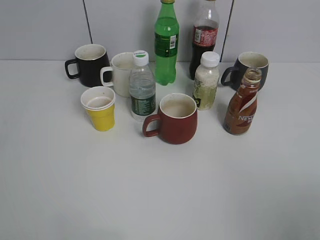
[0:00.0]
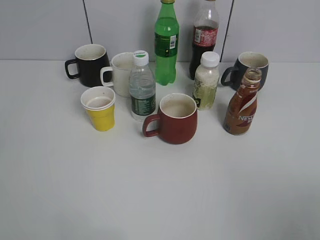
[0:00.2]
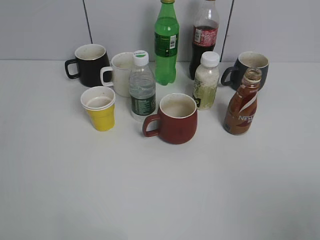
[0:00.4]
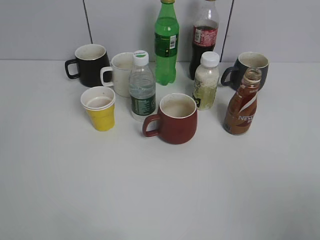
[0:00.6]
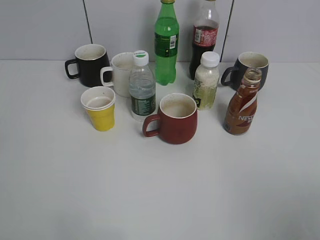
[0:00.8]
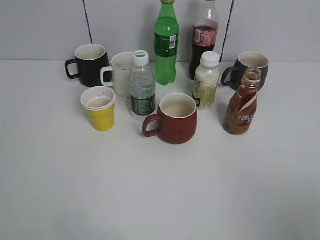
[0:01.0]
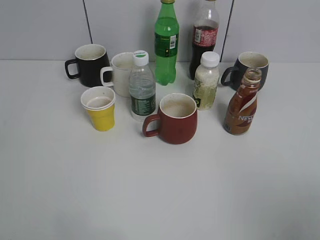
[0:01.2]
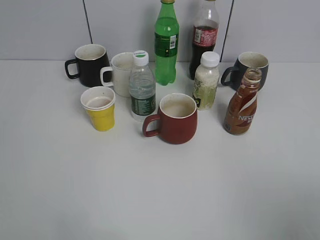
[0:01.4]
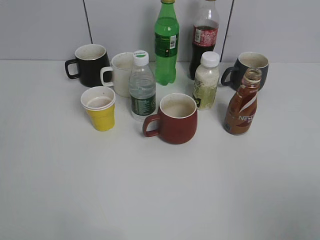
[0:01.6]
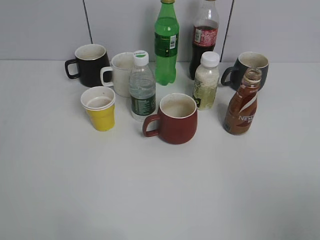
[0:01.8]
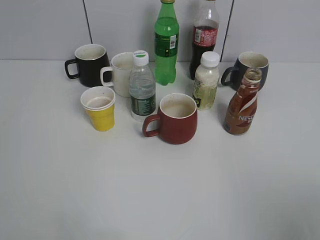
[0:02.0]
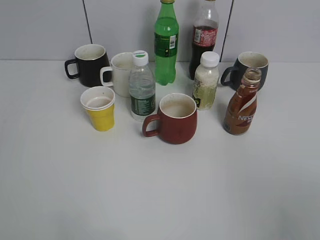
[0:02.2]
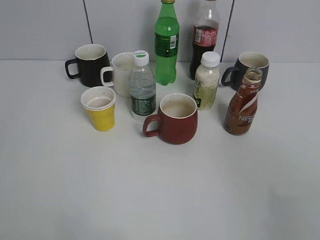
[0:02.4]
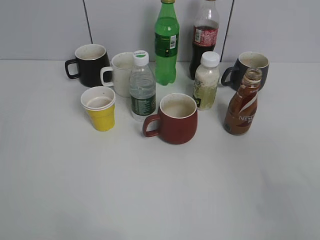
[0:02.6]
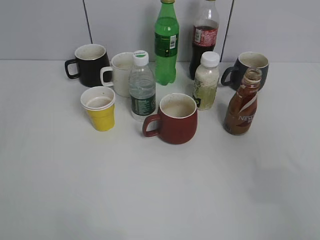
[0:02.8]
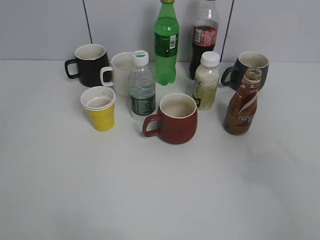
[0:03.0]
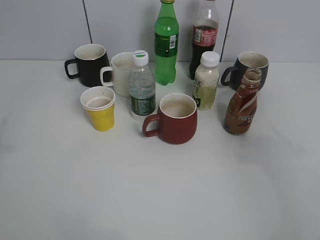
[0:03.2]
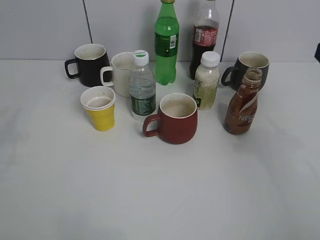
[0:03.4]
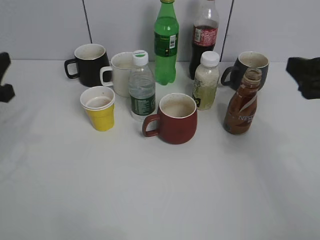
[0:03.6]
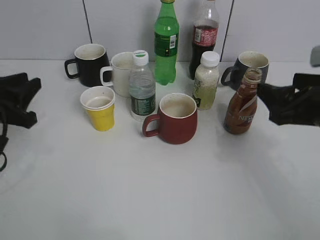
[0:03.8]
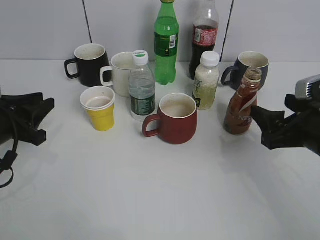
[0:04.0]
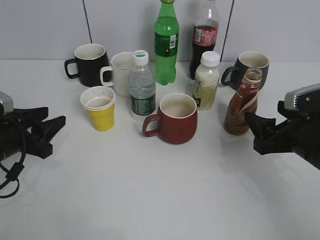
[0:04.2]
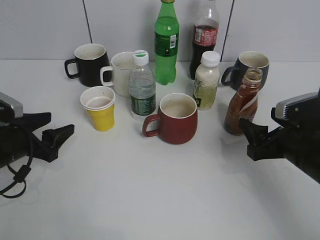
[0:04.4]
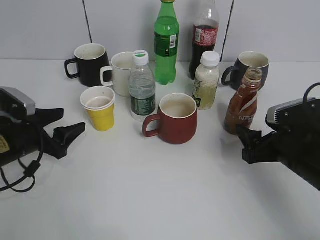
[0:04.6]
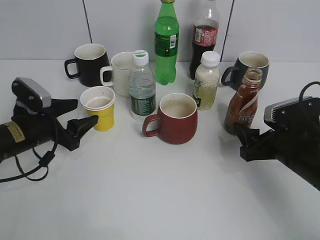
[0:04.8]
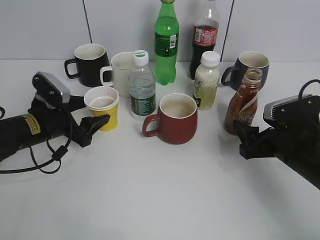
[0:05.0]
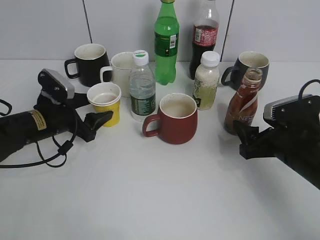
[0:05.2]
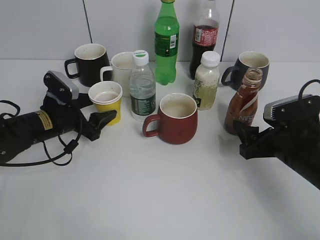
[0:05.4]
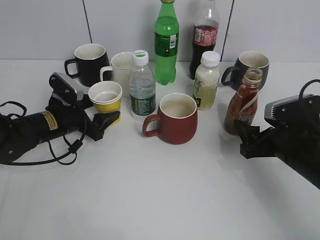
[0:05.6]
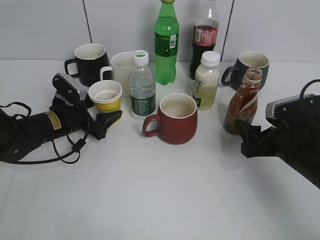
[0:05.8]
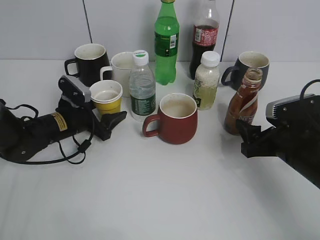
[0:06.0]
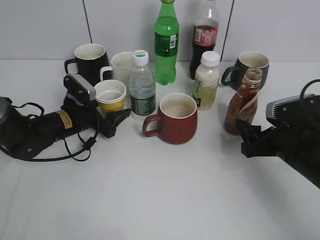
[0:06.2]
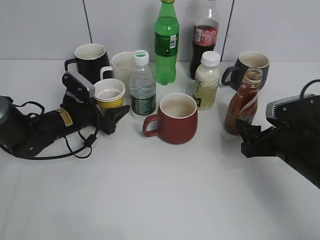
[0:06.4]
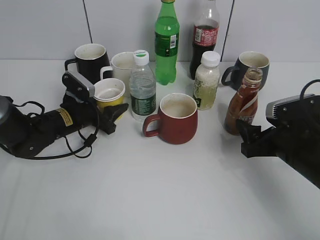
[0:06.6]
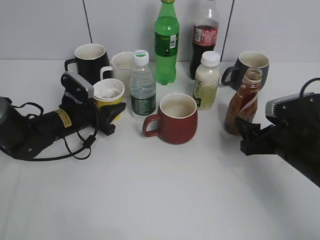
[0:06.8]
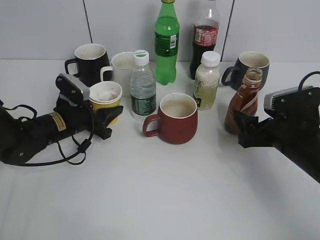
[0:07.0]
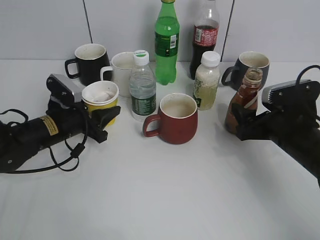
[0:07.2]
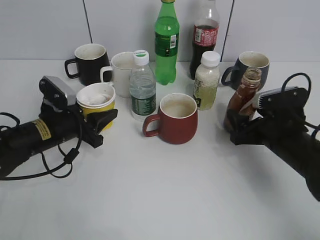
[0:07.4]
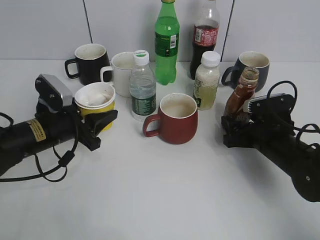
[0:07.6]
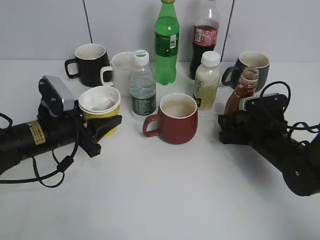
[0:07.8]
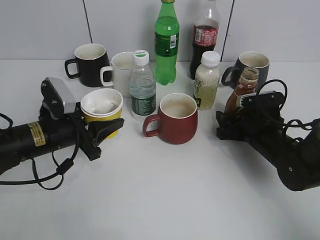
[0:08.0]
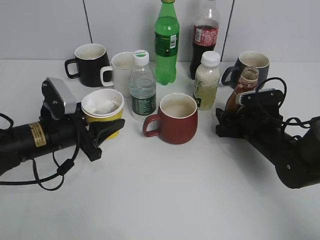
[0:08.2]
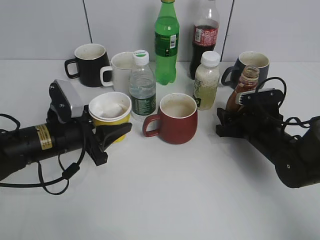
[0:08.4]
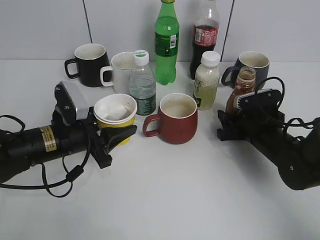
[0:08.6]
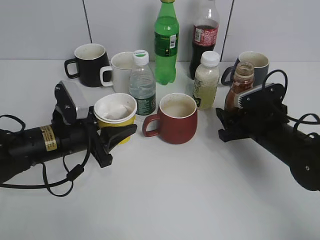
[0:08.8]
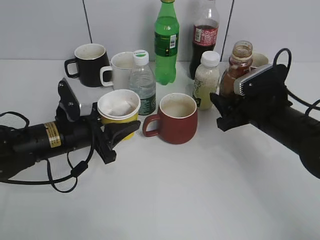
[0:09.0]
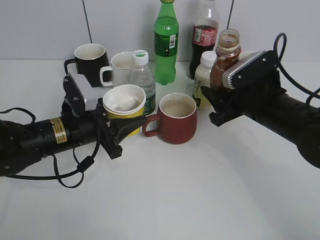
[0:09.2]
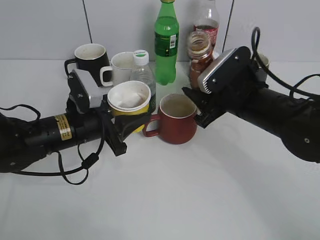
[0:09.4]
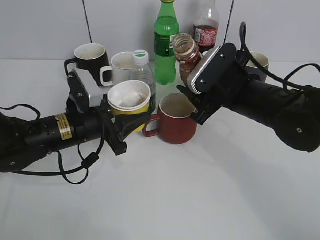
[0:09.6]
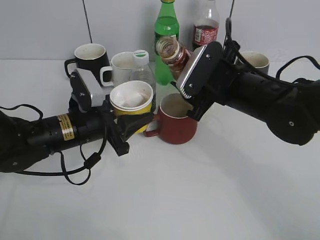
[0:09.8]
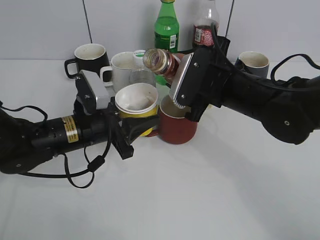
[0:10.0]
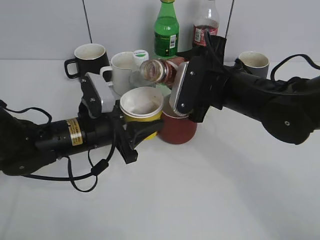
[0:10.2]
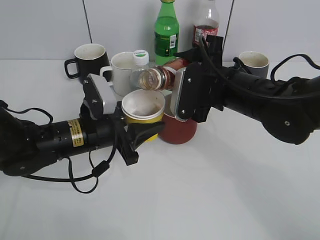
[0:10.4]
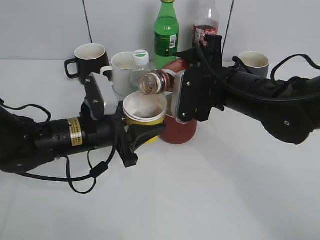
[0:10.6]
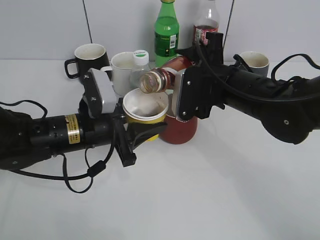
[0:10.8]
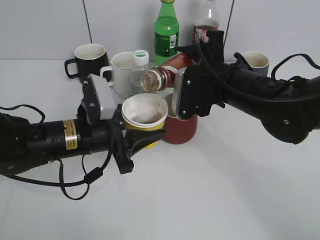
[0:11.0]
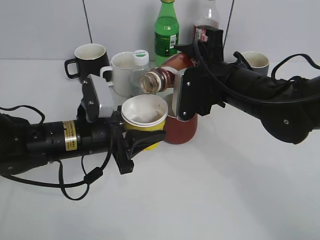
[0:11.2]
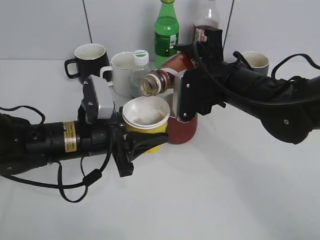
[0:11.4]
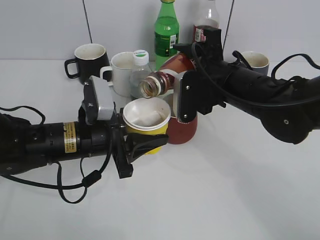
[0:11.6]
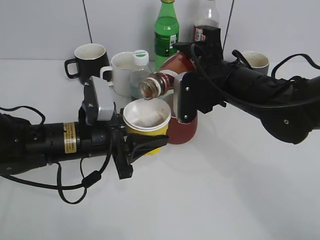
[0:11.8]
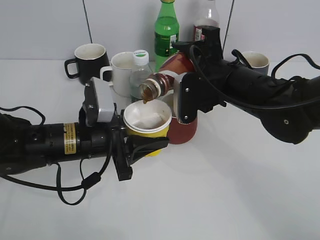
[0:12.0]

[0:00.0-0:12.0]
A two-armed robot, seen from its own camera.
Step, 0:01.6 to 0:06.6: Grasp the yellow paper cup with left gripper.
Step, 0:07.0 to 0:08.4: Grasp the bottle with coffee with right gripper.
0:01.6 to 0:03.0: The right gripper goes about 15 cm forward.
0:03.0 to 0:04.4: The grippers both shift downward and forward by some 25 cm. The left gripper opens.
0:04.4 to 0:06.0: The left gripper goes roughly 10 cm forward and to the right.
0:06.0 to 0:07.6: The right gripper ends up roughly 5 cm from where it was. The left gripper shifts approximately 5 cm backward, and closes.
0:07.6 to 0:09.0: The right gripper heads upward, covering about 5 cm, and closes up.
0:09.0 to 0:10.4: The right gripper is displaced to the left and upward by about 10 cm.
0:10.4 to 0:12.0: There are only small adjustments of the grippers.

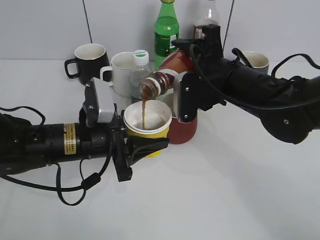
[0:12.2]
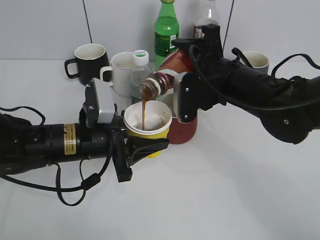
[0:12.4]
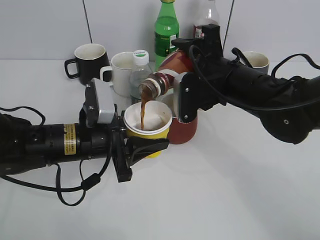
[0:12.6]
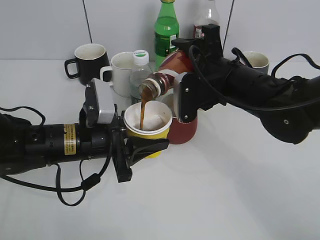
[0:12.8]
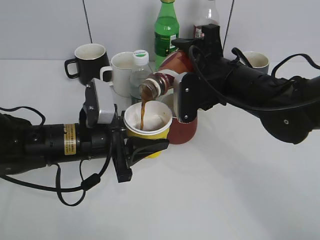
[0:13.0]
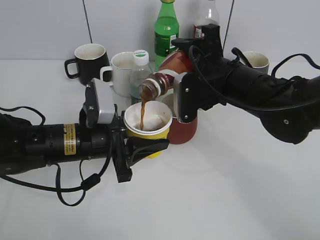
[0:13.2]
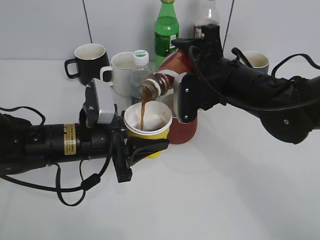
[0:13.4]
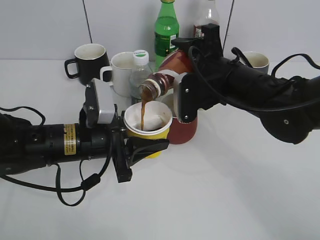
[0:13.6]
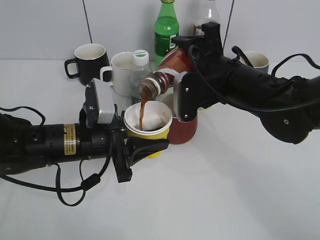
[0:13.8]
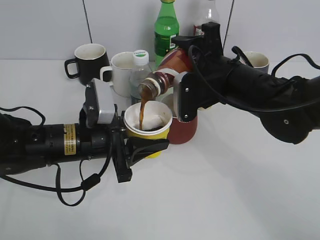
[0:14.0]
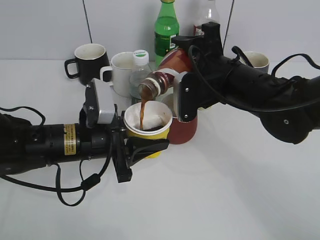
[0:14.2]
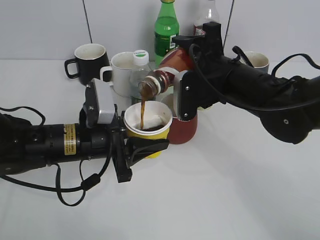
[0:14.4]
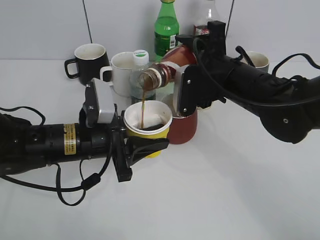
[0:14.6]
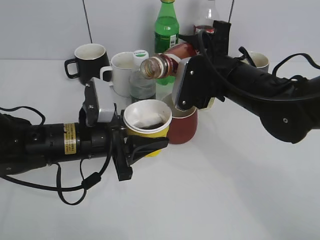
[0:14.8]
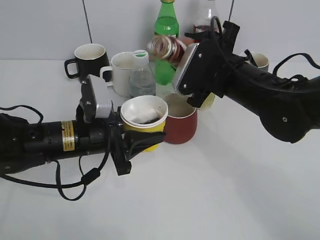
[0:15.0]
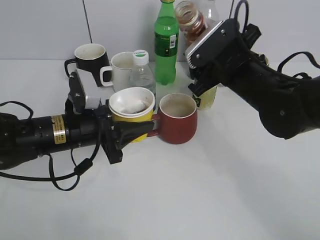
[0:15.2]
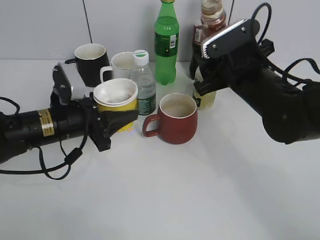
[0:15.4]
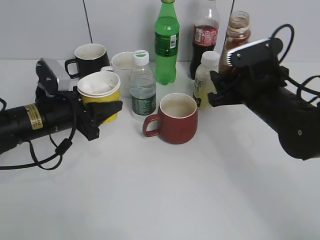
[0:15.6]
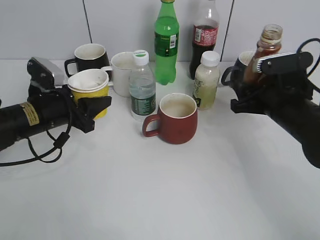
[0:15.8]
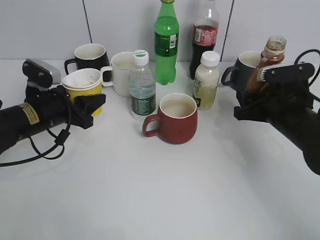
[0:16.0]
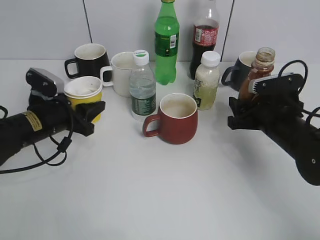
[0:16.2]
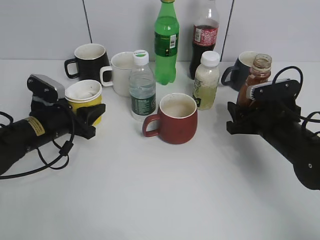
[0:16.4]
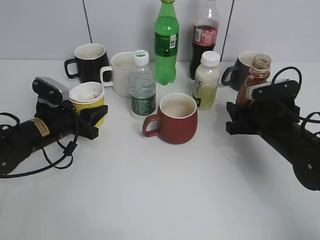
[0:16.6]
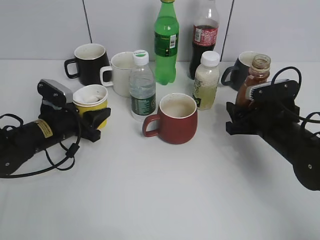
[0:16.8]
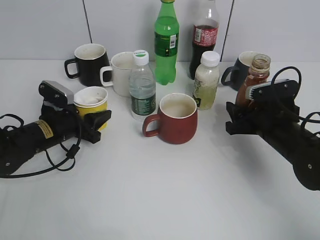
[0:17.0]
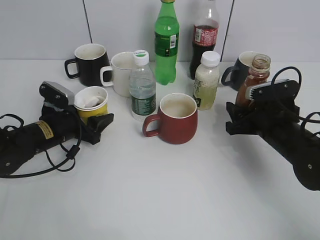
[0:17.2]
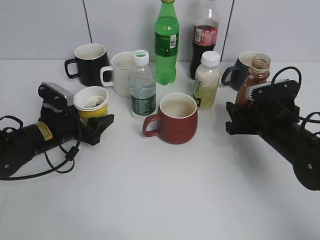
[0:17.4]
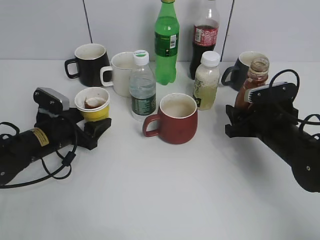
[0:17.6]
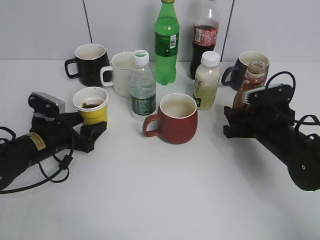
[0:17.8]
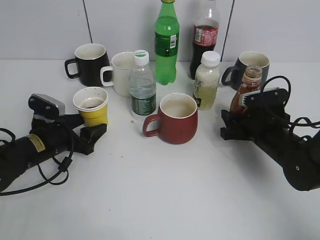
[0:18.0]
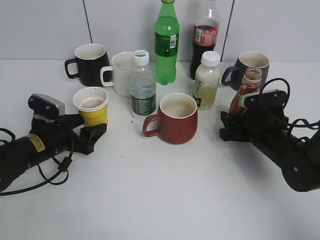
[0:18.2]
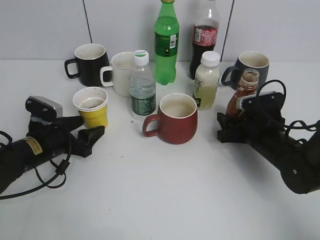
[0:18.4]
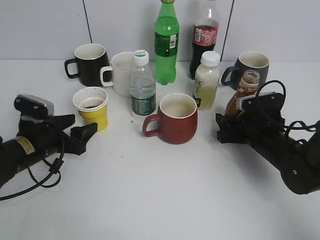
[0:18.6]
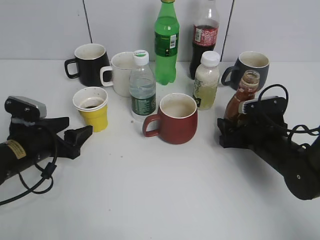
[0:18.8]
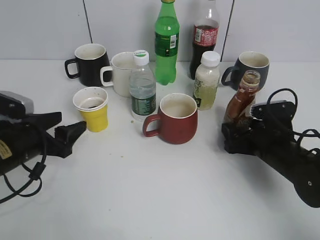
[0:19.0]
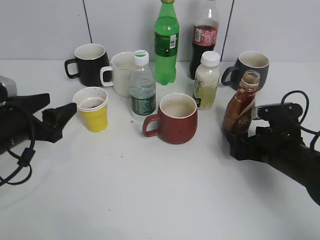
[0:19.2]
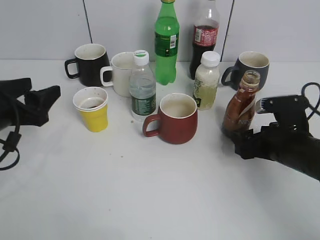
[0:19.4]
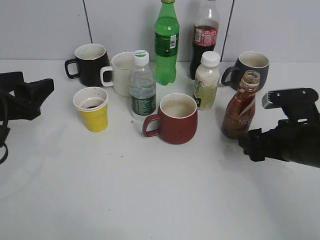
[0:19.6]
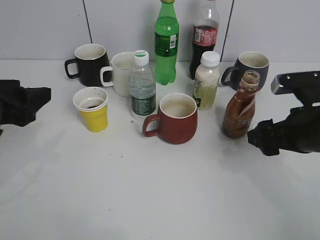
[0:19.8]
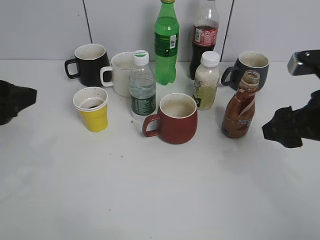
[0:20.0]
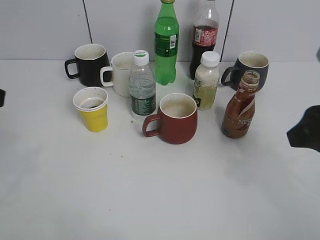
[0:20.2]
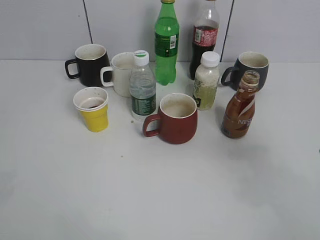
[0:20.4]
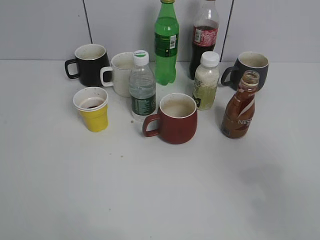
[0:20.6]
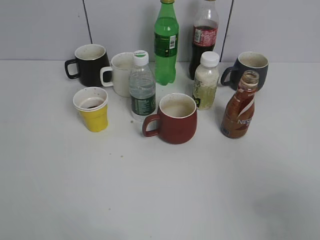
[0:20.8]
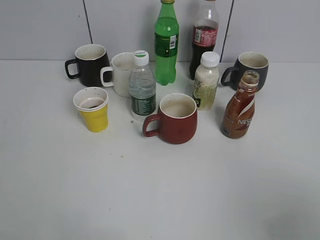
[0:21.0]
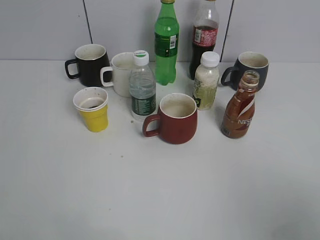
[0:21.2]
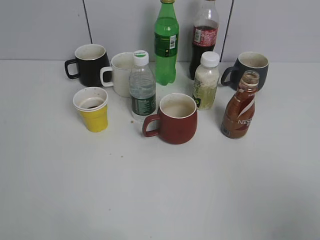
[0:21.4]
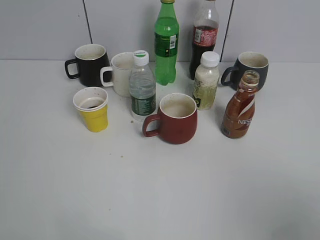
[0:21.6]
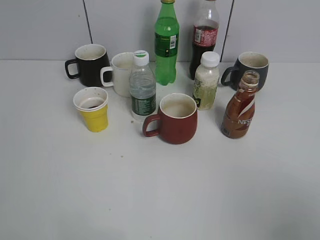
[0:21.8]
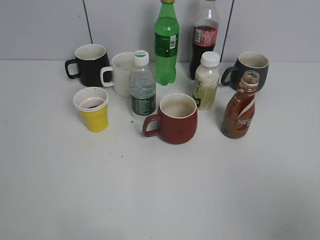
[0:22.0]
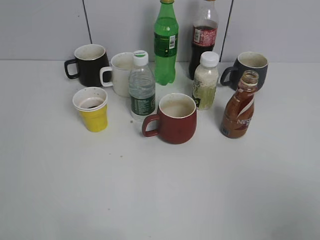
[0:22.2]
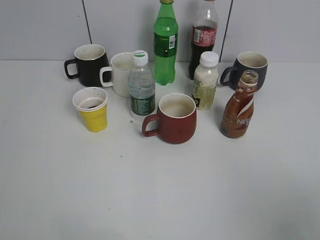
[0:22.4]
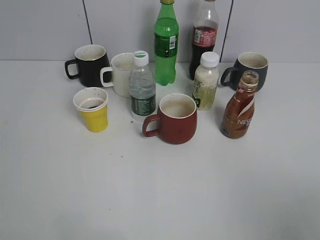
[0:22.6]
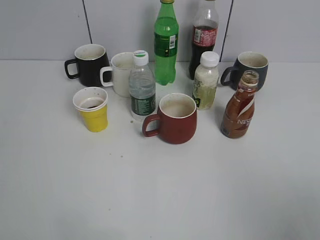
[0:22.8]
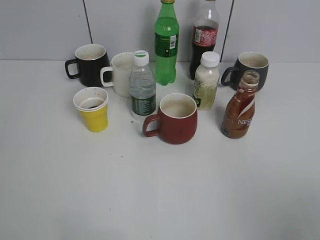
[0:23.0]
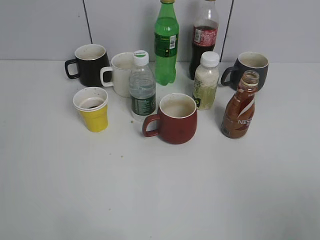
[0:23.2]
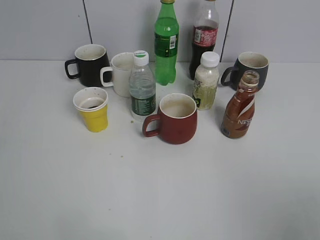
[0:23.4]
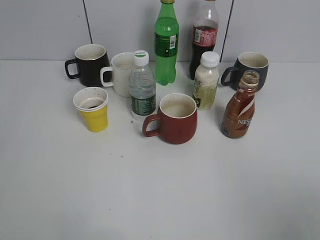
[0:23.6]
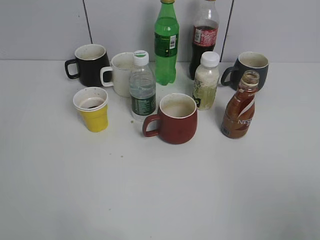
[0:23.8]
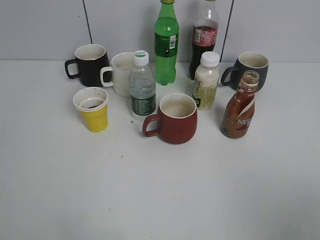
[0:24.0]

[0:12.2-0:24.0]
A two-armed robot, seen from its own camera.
Step, 0:12.2 to 0:15.0: Pour the coffee from bottle to cup with right gripper.
Step, 0:15.4 to 0:19.0: Place the coffee bottle on the table with right gripper.
0:12.2 to 0:13.6: Neither gripper changes place.
0:15.2 to 0:16.6: The right gripper travels downward and to the right by about 15 cm, while the left gripper moves to the left, downward and forward, some 10 cm.
0:16.6 to 0:18.2: The left gripper opens.
0:18.2 to 0:19.6: The right gripper is displaced upward and backward by roughly 10 cm, and opens its fingers, while the left gripper heads upward and backward, covering some 15 cm.
0:19.6 to 0:21.0: The two grippers go roughly 25 cm backward and upward.
0:22.6 to 0:24.0: The two grippers keep their place.
